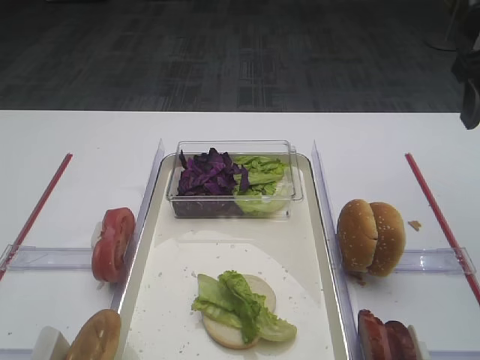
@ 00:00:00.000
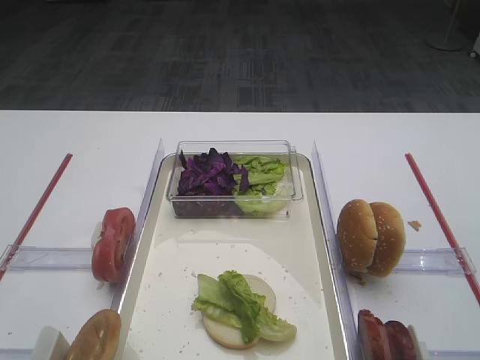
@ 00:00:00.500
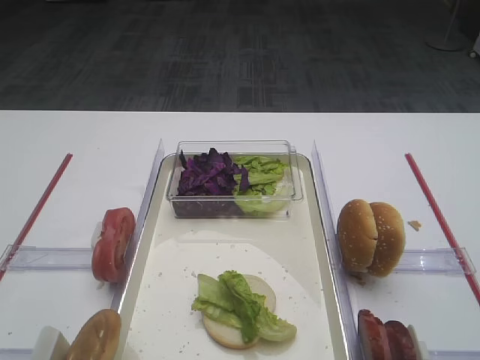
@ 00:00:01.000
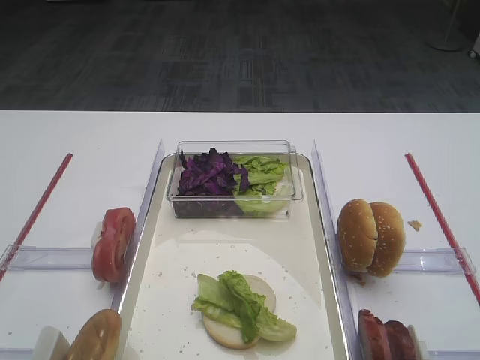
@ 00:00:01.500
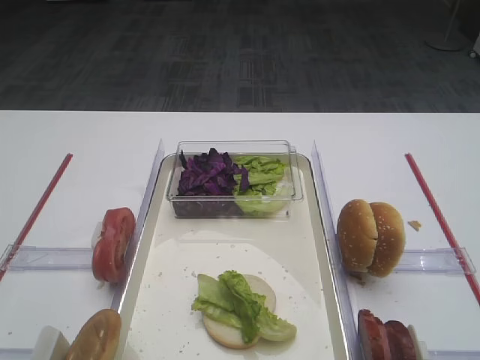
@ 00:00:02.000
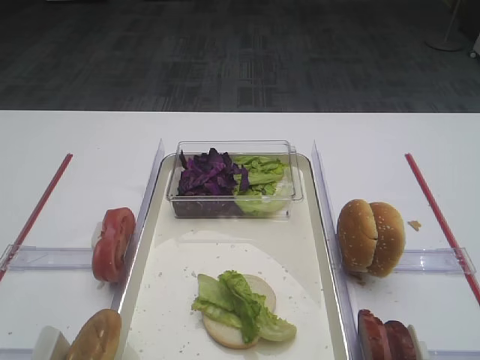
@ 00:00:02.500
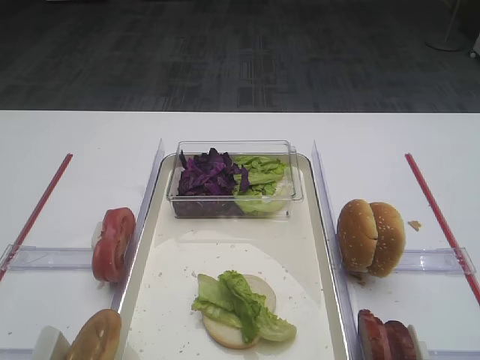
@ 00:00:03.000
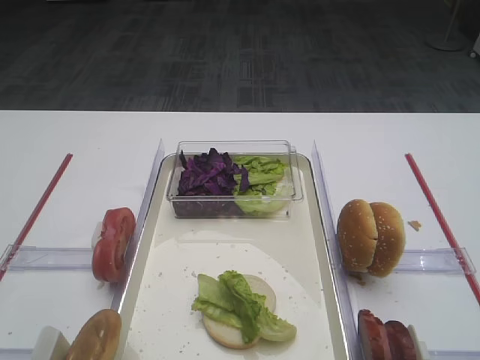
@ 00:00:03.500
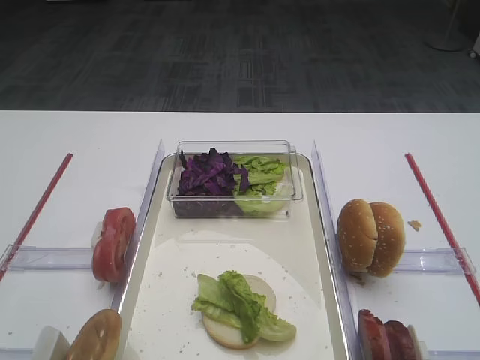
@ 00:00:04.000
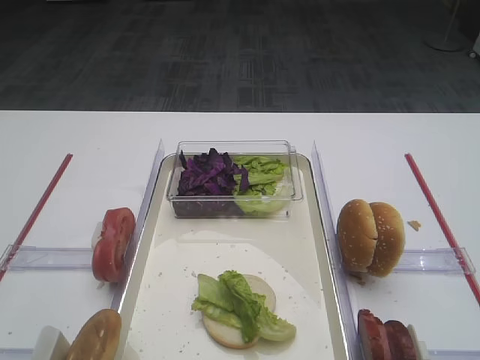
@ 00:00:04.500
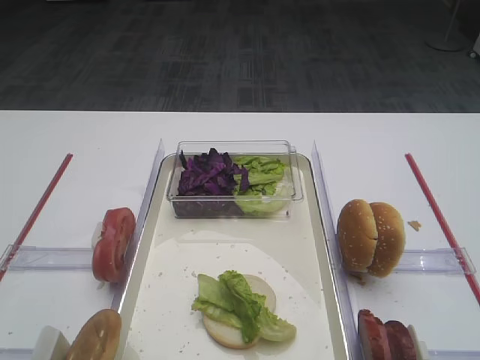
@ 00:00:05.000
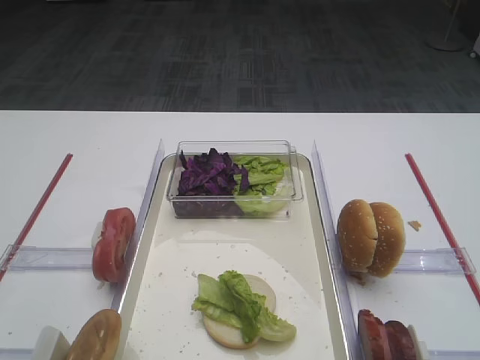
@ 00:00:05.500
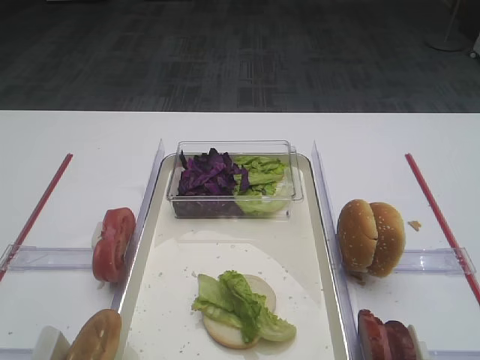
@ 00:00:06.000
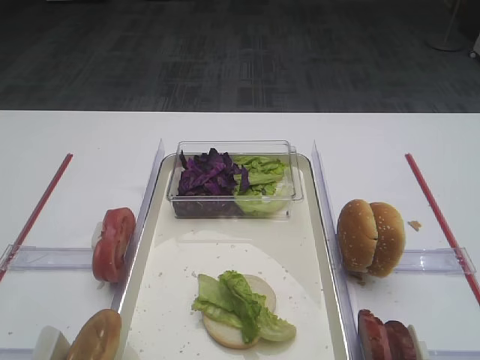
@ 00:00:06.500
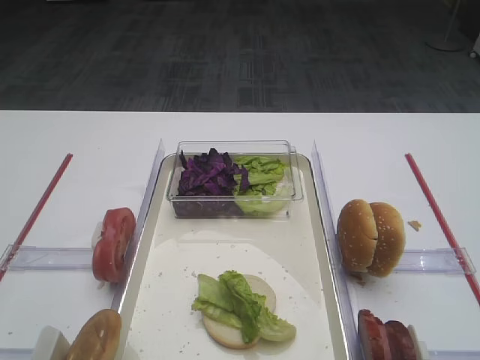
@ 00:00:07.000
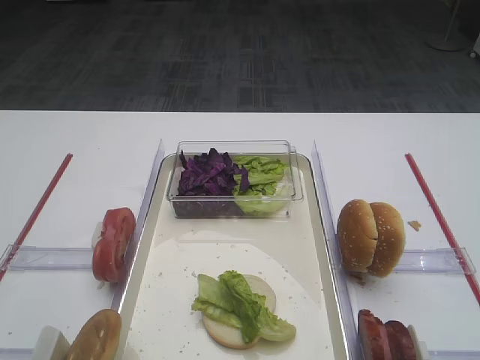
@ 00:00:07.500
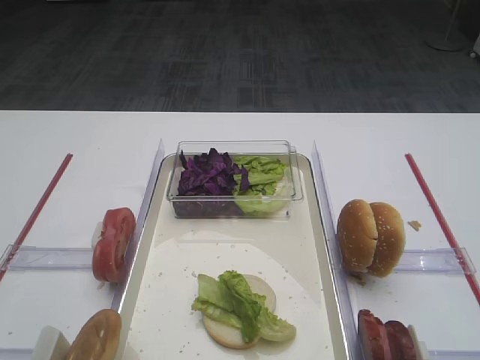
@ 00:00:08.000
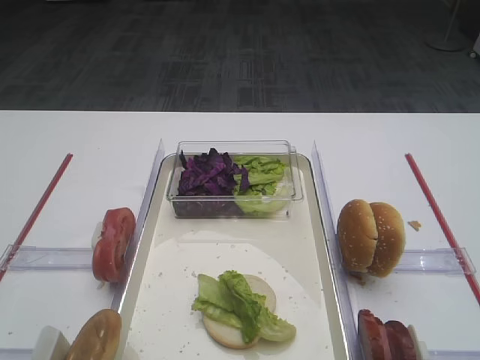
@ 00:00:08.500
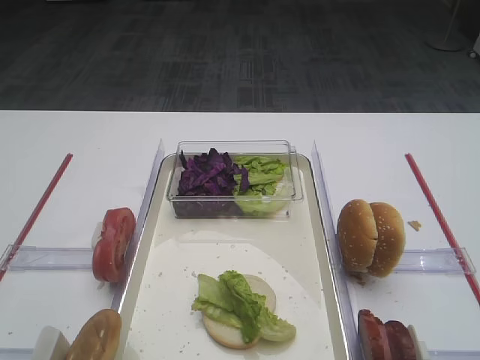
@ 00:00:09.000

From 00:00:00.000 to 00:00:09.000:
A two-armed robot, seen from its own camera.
From 00:00:00.000 to 00:00:02.000: The right gripper heads backward, covering roughly 30 cm.
From 00:00:07.000 to 00:00:09.000: Both grippers stay about where they are.

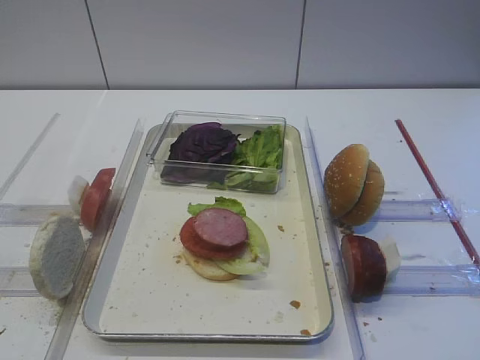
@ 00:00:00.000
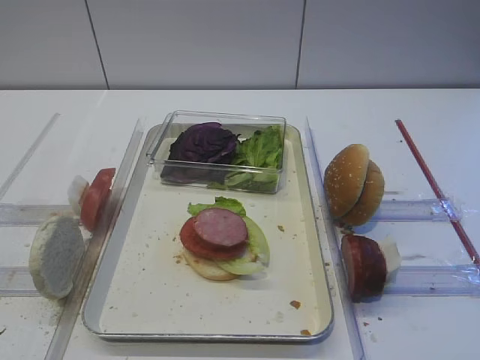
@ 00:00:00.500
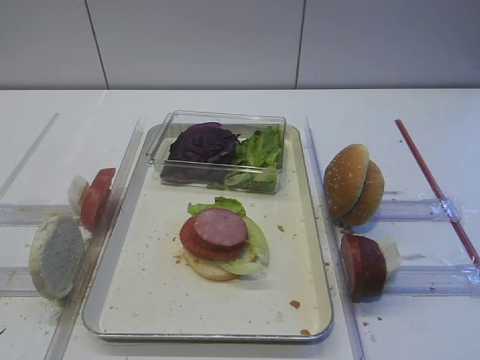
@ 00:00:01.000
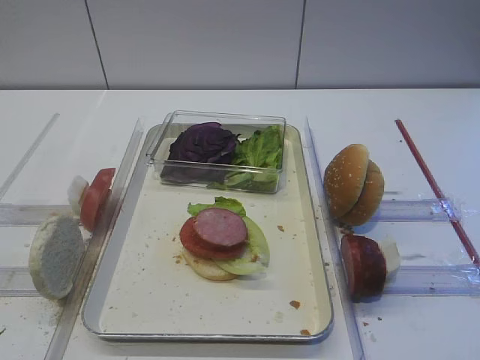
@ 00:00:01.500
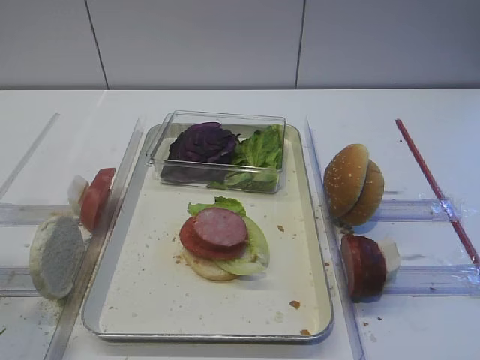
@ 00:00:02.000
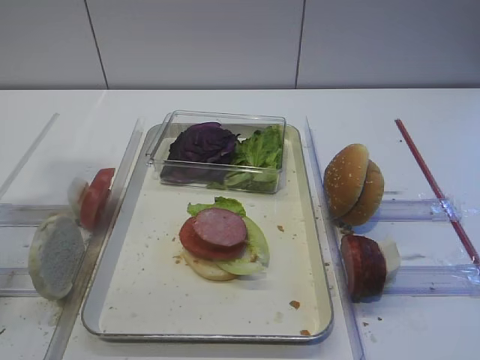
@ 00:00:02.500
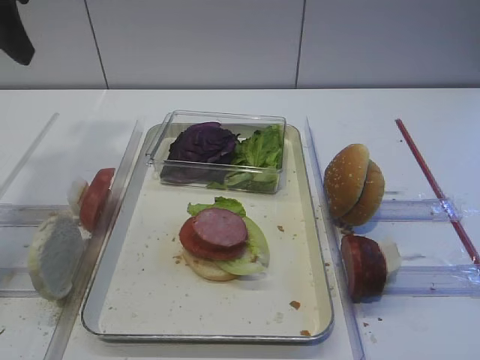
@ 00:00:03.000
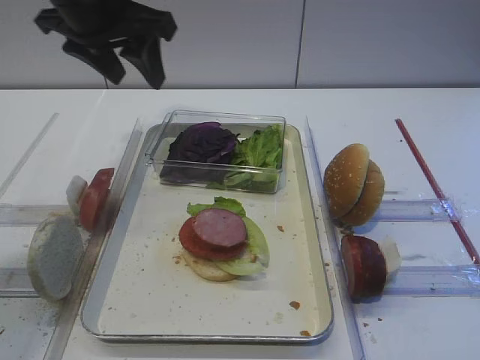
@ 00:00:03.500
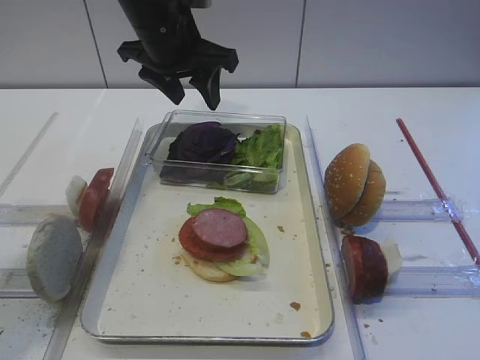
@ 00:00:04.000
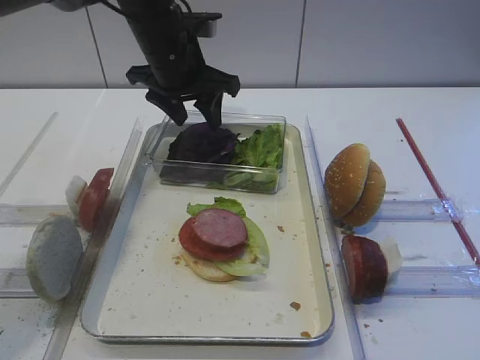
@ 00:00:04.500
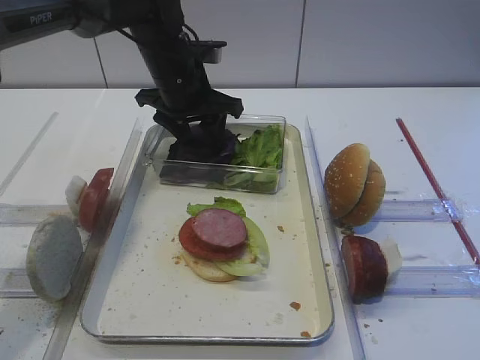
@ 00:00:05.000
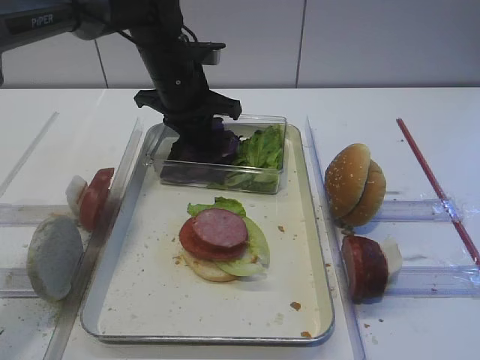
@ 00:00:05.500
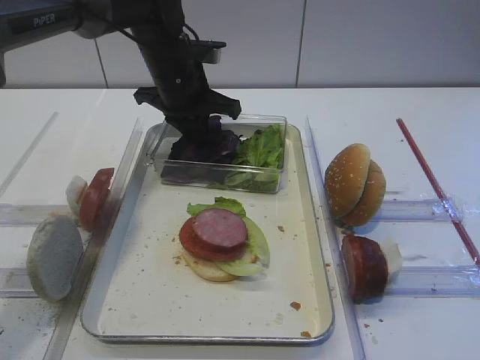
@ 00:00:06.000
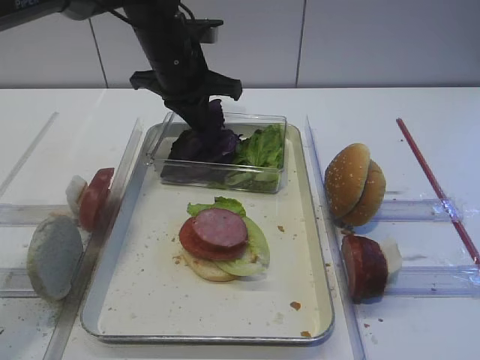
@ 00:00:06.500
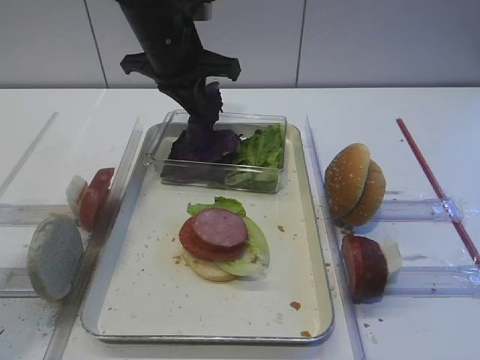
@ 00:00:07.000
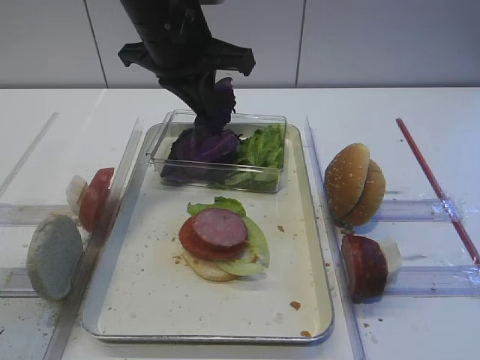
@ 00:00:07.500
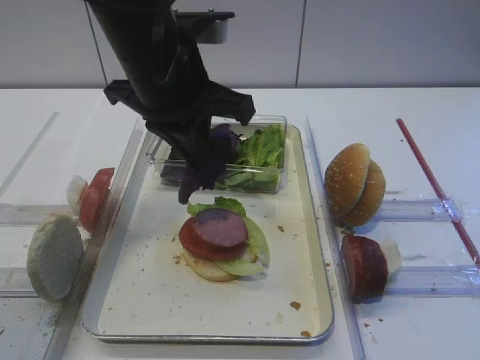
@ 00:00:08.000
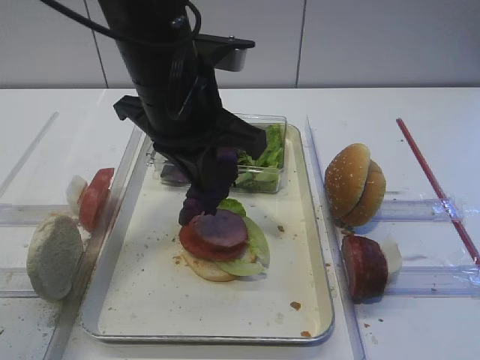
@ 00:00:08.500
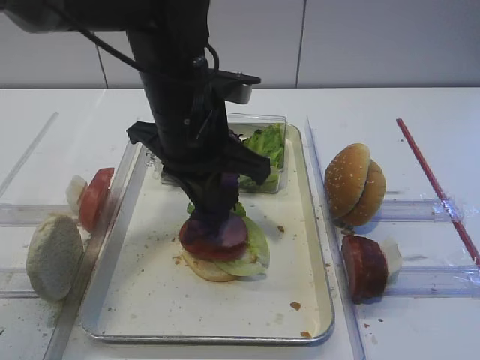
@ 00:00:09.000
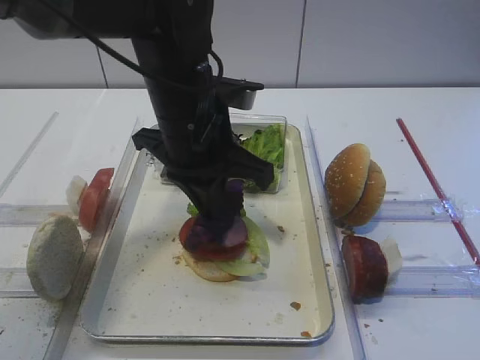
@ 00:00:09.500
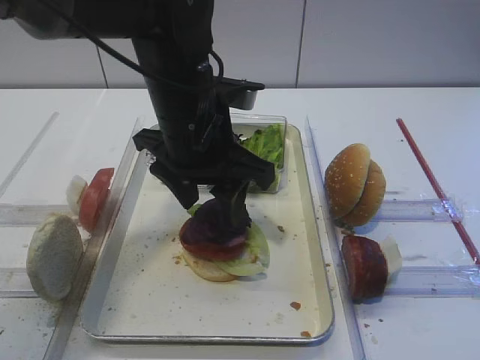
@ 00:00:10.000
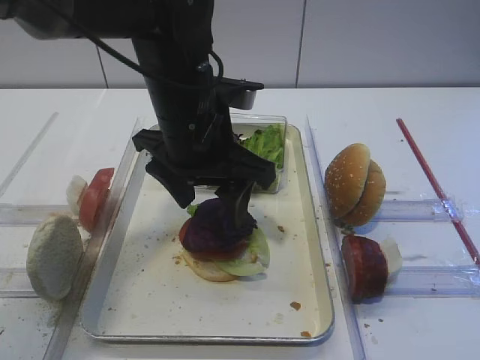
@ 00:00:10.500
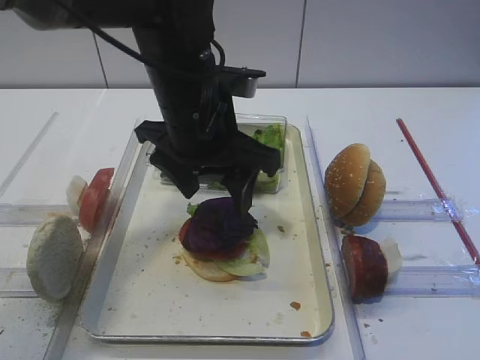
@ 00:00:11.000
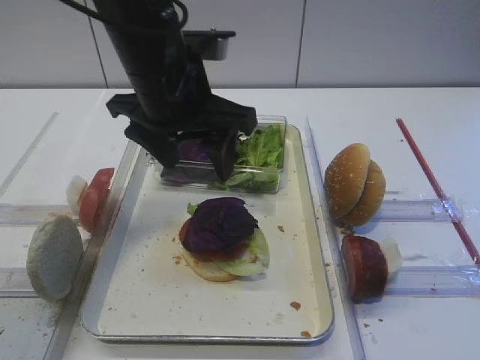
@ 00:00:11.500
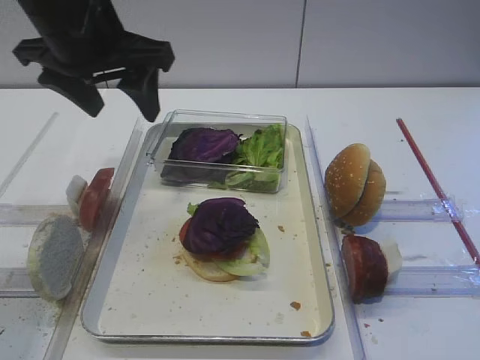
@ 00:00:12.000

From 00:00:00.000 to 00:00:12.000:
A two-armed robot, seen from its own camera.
Step, from 00:00:00.000 to 00:00:07.000: Pick up the purple cabbage with the left gripper.
Step, from 00:00:07.500 to 00:00:11.000: Place the purple cabbage on the cutlet with the left gripper.
From 00:00:02.000 to 00:00:04.000: The left gripper shifts about 40 cm forward and to the right.
From 00:00:04.000 to 00:00:06.000: The left gripper travels downward by approximately 10 cm, and closes its fingers.
From 00:00:06.000 to 00:00:08.000: The left gripper goes approximately 15 cm backward and upward.
From 00:00:08.000 to 00:00:10.000: The left gripper heads downward, covering approximately 5 cm, and opens.
From 00:00:10.000 to 00:00:12.000: The left gripper moves to the left and upward, some 15 cm.

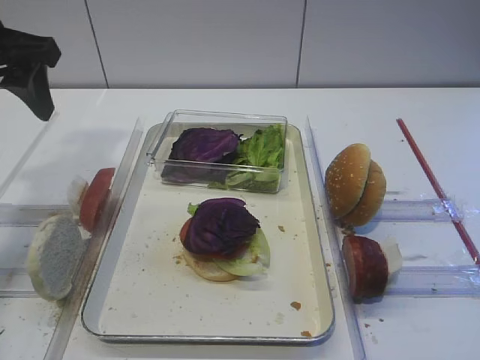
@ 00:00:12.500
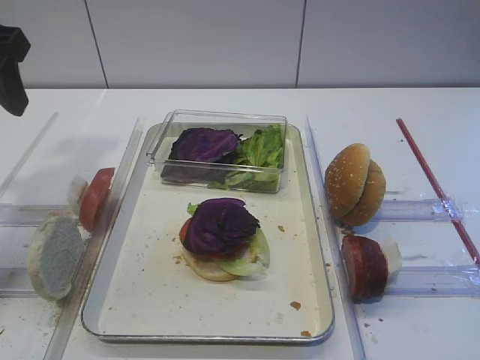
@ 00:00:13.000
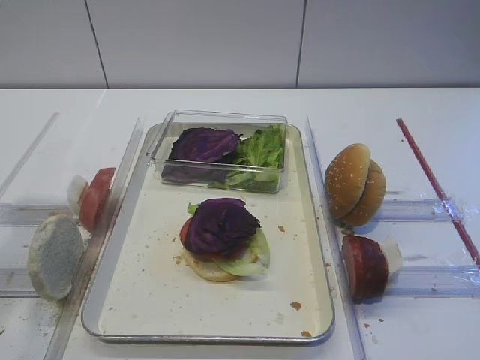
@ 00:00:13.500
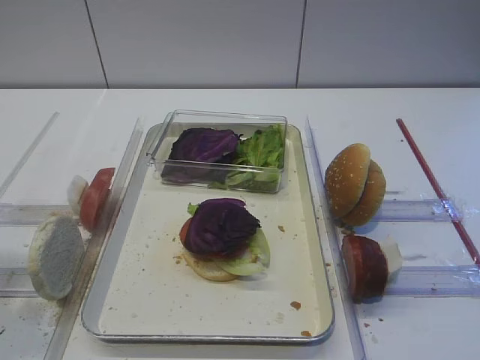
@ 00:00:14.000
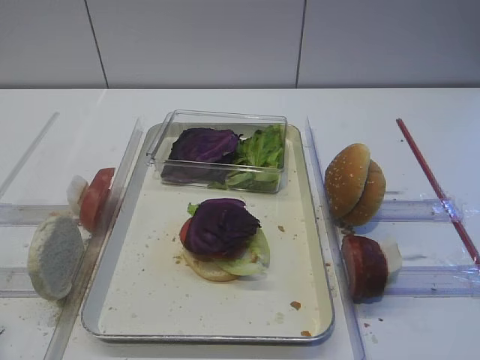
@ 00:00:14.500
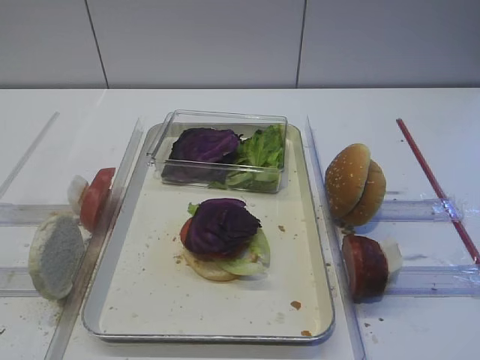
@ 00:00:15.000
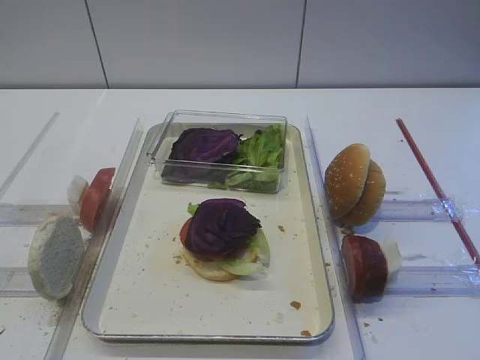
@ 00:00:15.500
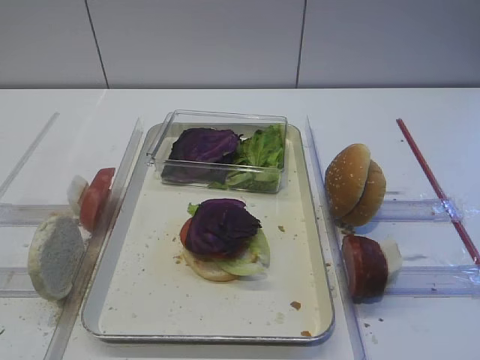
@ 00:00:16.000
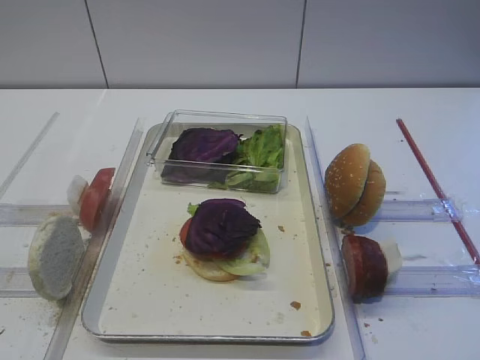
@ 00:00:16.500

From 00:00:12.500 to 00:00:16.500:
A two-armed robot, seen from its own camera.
From 00:00:12.500 to 00:00:14.500: The left gripper travels backward by roughly 30 cm.
